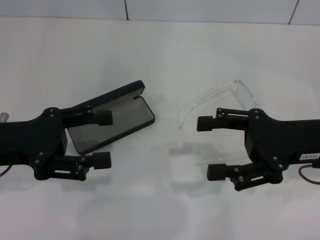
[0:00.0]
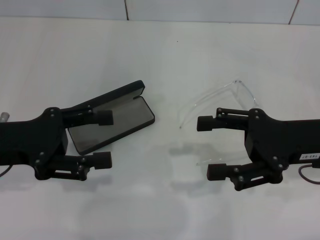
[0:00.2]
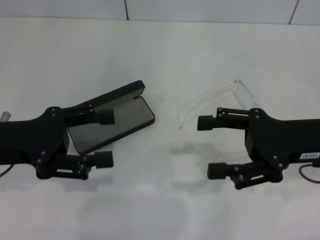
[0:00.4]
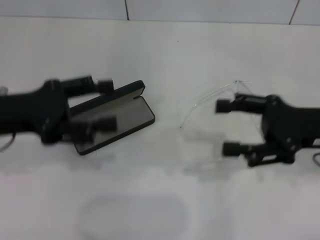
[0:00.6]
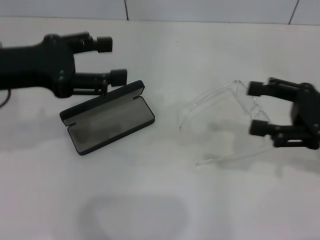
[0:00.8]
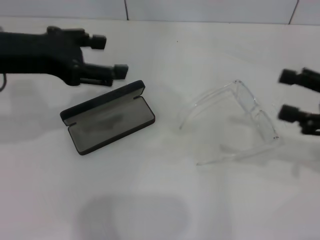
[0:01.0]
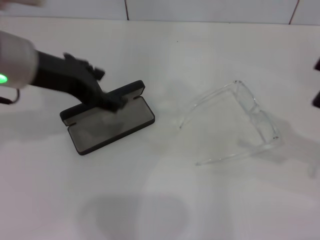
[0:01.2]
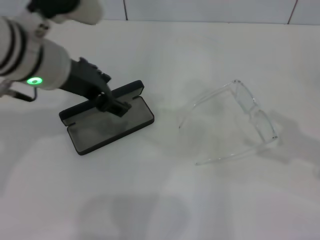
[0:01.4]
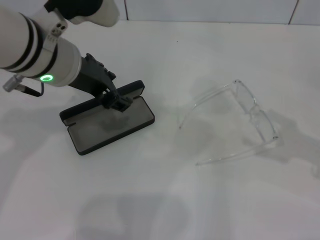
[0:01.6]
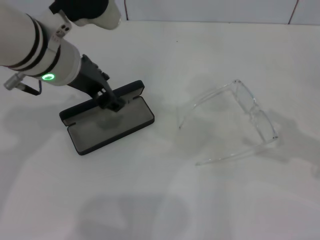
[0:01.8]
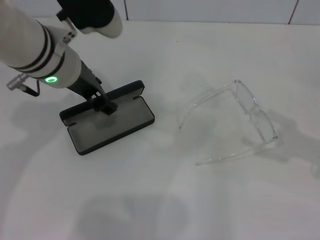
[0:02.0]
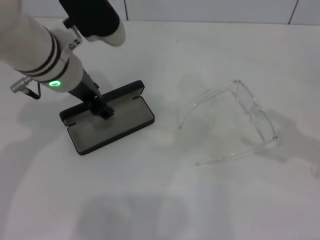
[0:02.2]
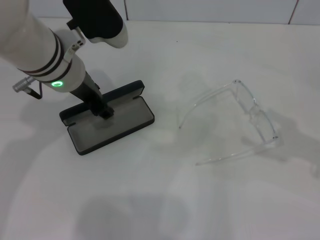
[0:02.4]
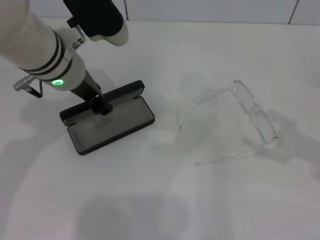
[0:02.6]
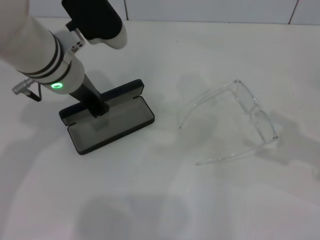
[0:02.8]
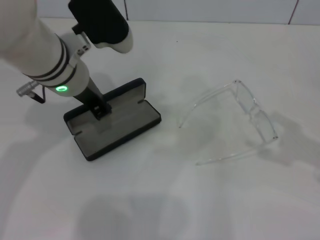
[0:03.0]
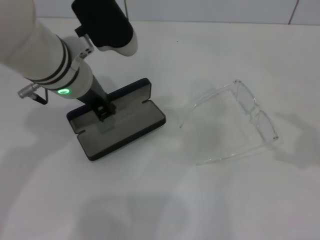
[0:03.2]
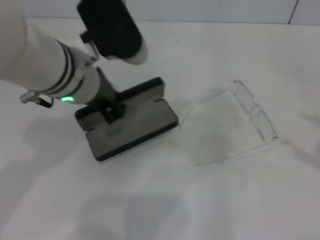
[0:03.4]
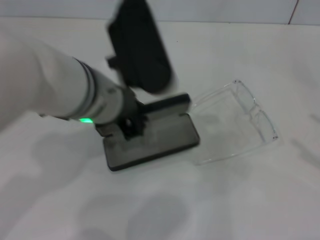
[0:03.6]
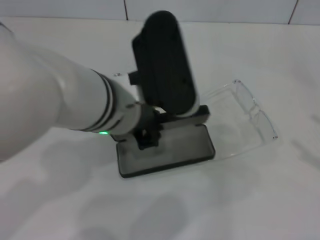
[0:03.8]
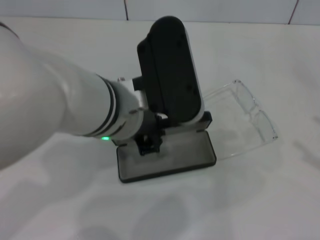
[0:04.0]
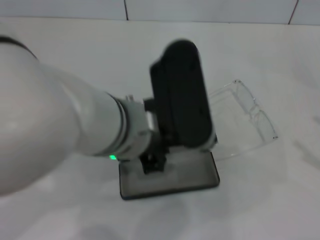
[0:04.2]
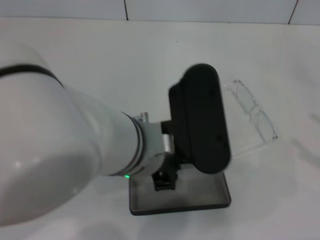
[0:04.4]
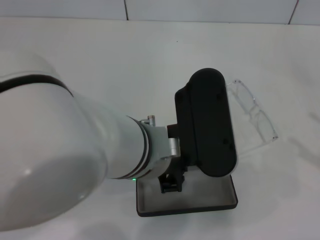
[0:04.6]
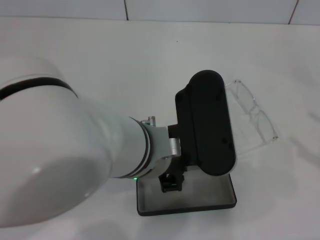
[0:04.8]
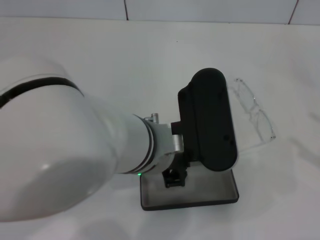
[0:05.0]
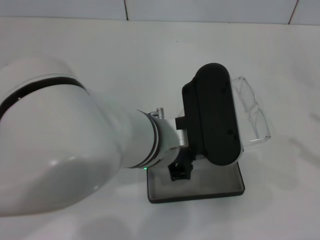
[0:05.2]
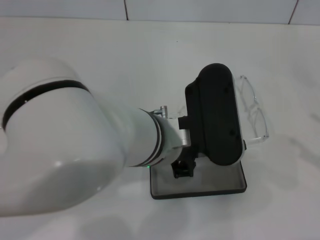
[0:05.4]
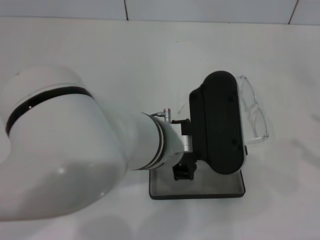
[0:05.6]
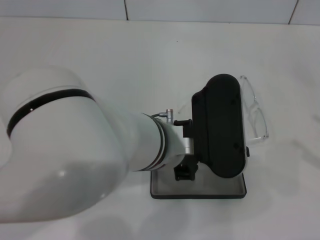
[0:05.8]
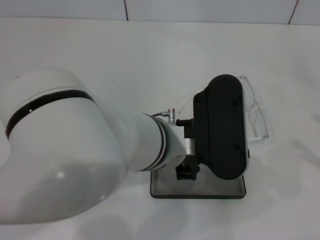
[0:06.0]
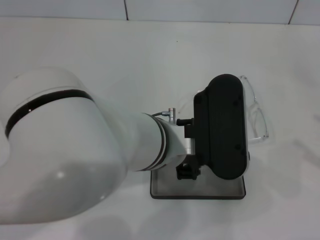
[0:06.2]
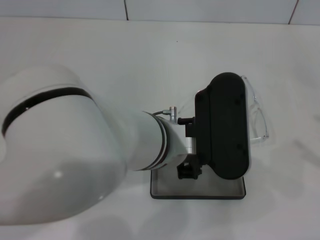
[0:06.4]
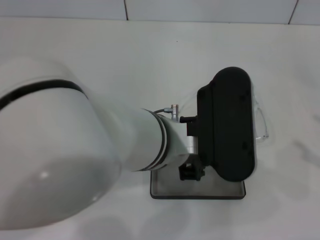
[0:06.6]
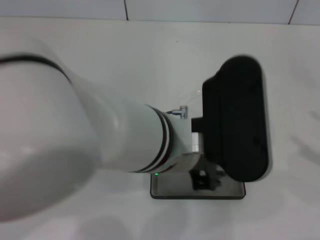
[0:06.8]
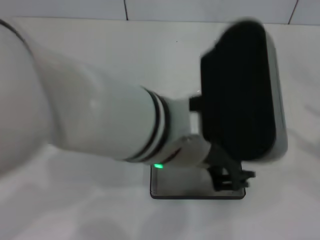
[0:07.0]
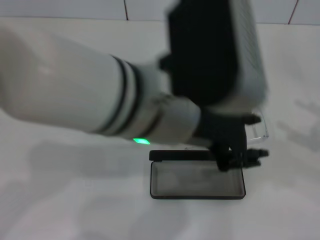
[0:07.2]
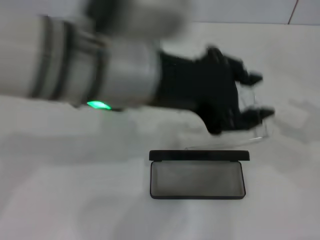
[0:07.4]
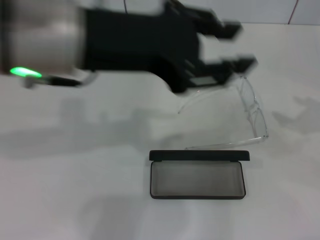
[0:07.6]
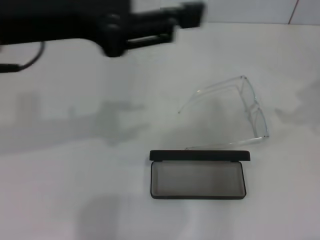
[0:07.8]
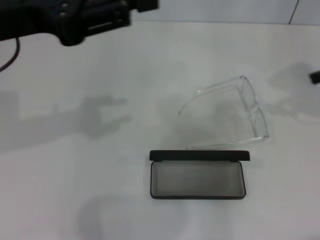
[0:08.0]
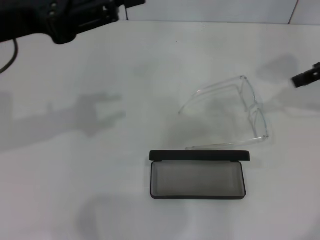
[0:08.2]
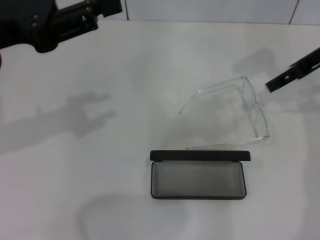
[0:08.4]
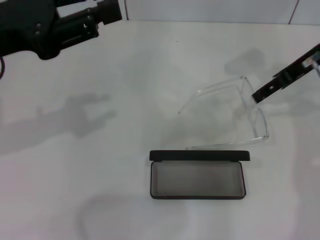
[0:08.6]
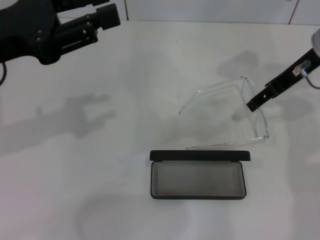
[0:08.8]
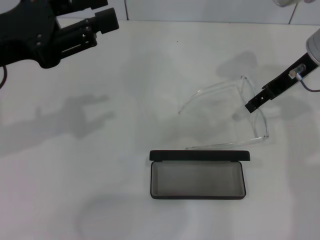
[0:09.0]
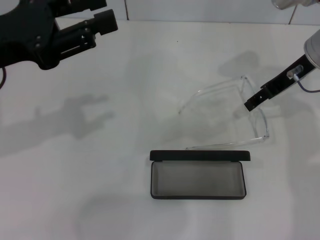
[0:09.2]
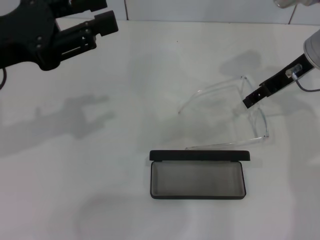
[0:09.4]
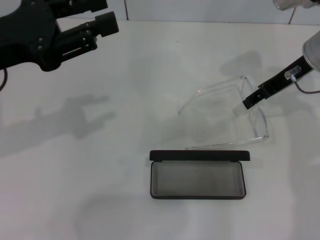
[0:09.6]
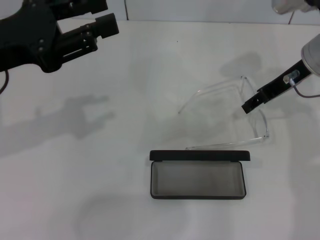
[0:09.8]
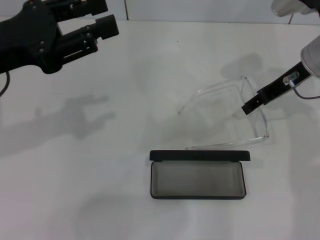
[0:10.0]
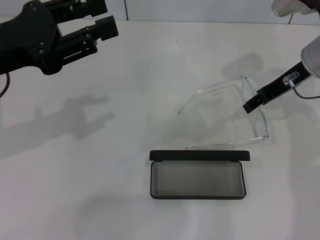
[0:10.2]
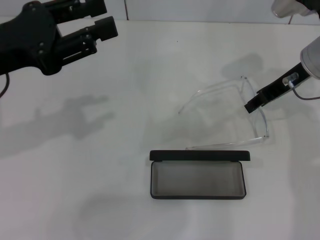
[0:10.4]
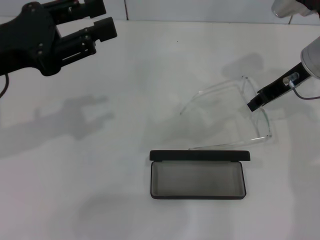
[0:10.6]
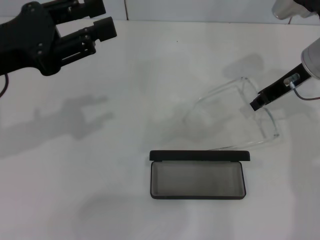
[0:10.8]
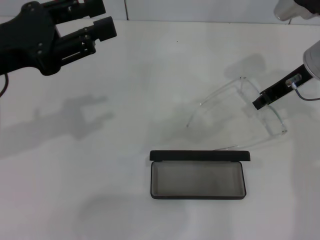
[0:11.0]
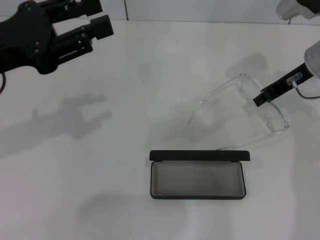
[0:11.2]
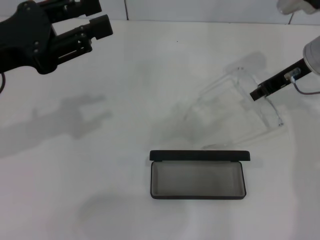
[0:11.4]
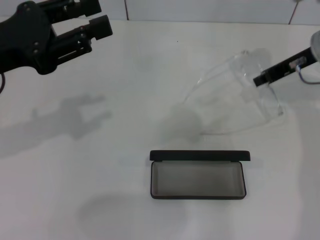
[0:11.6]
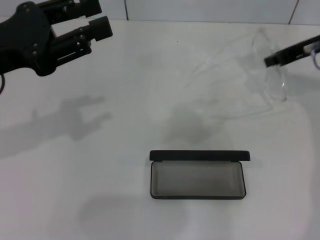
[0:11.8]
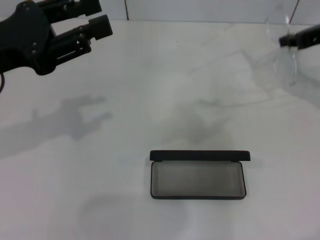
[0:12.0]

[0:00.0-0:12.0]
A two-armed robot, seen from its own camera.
Step, 0:00.0 to 0:02.6: Grab the glasses case with your left hand.
Step, 0:03.0 to 0:06.8: Place the glasses case in the center of the table with your left hand.
Step, 0:07.0 to 0:10.8: Grab the eyeglass frame with your right hand.
0:00.0 to 0:01.6: The left gripper travels to the right, forward and upward by about 15 cm; the right gripper moves to the right, some 15 cm.
0:01.6 to 0:03.0: The left gripper closes its fingers.
0:03.0 to 0:04.4: The right gripper is displaced backward by approximately 5 cm. The left gripper travels backward and to the right by about 15 cm.
0:06.0 to 0:07.6: The right gripper shifts approximately 15 cm forward and upward. Meanwhile the left gripper travels upward and to the left by roughly 15 cm.
0:07.6 to 0:09.0: The right gripper is displaced to the left and forward by approximately 20 cm; the left gripper shifts roughly 15 cm to the left and downward.
0:09.0 to 0:10.4: The grippers make only small movements.
0:10.4 to 0:12.0: The right gripper shifts about 5 cm to the right, and closes its fingers.

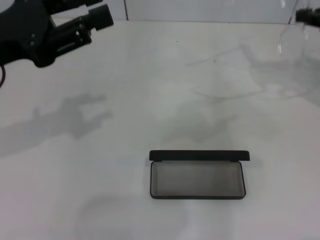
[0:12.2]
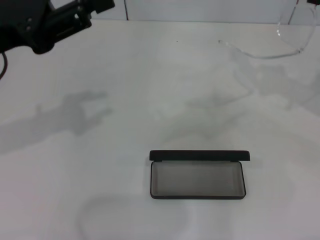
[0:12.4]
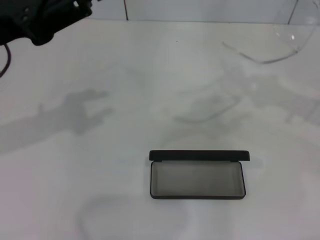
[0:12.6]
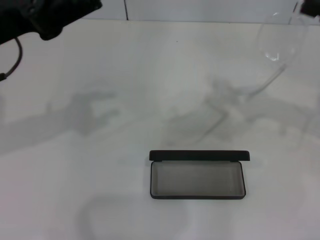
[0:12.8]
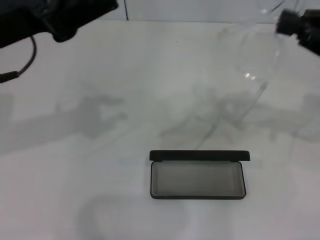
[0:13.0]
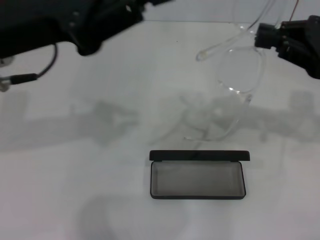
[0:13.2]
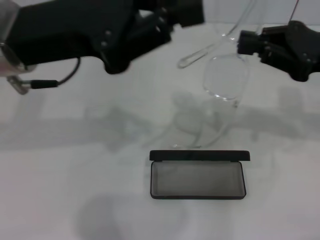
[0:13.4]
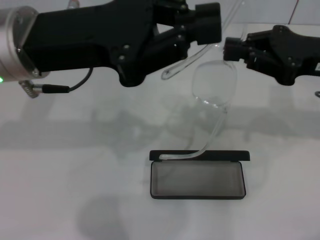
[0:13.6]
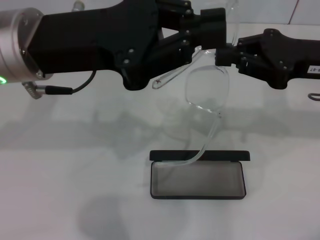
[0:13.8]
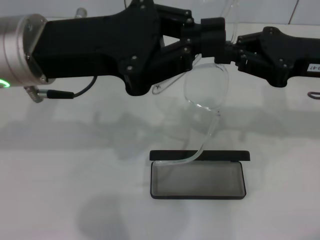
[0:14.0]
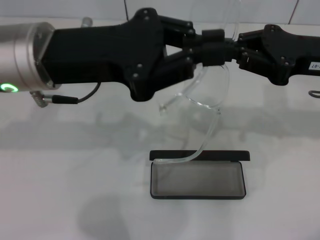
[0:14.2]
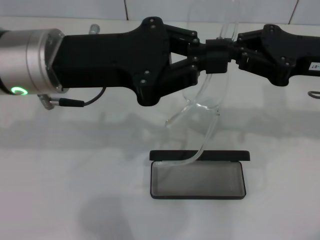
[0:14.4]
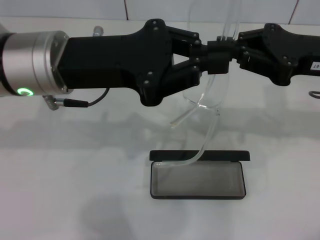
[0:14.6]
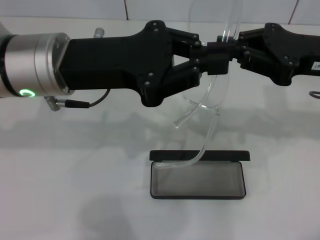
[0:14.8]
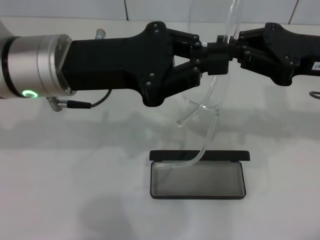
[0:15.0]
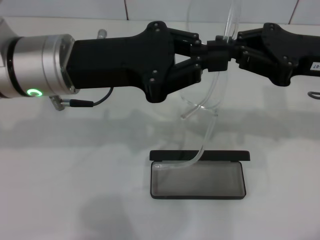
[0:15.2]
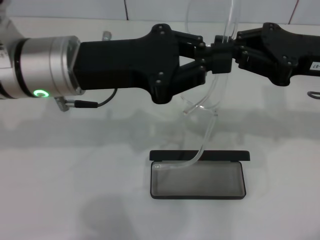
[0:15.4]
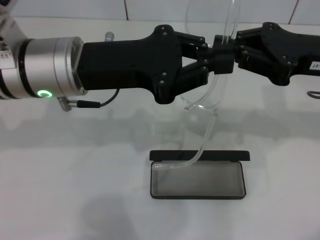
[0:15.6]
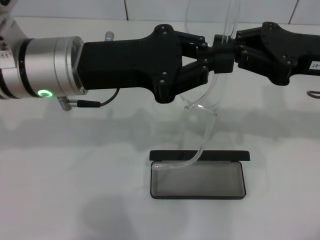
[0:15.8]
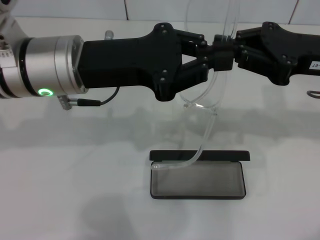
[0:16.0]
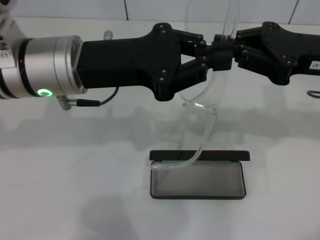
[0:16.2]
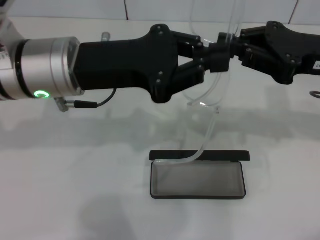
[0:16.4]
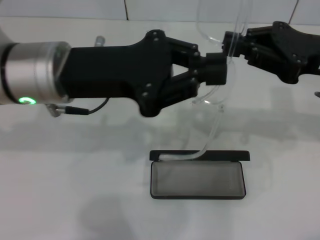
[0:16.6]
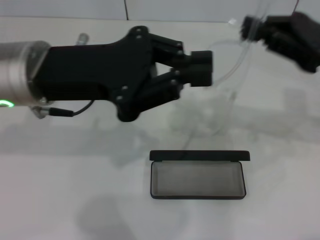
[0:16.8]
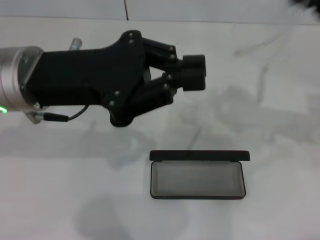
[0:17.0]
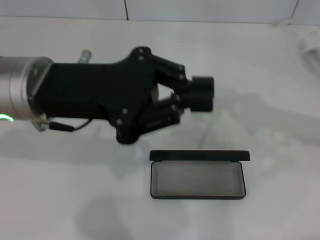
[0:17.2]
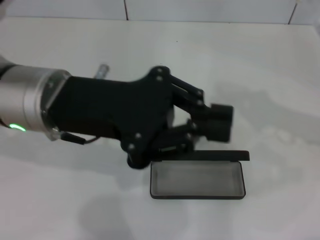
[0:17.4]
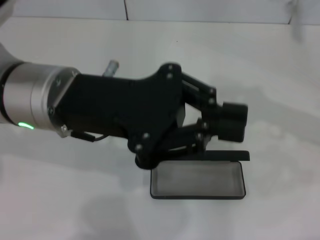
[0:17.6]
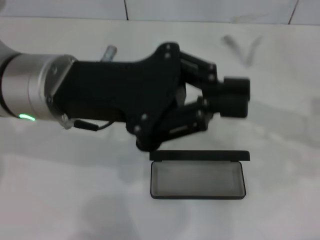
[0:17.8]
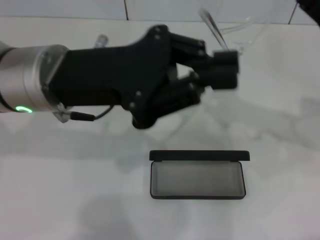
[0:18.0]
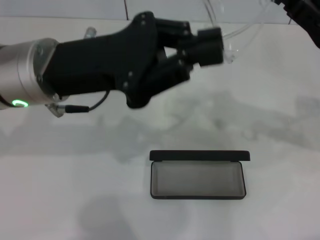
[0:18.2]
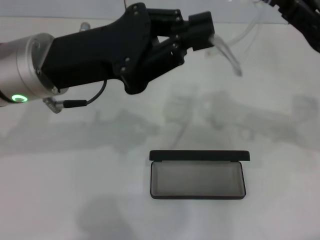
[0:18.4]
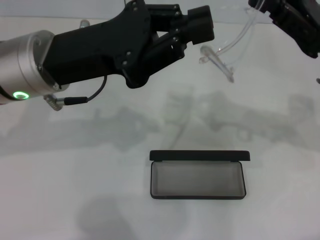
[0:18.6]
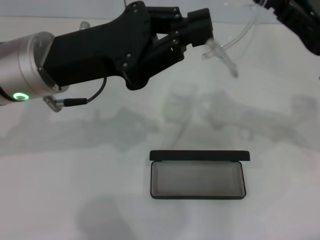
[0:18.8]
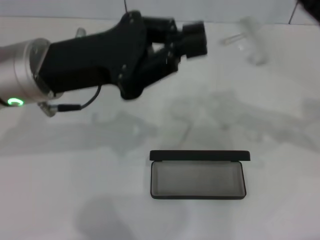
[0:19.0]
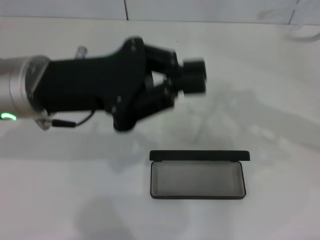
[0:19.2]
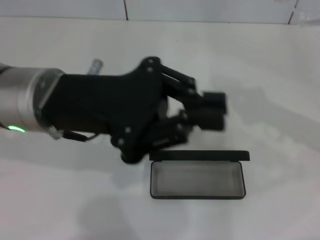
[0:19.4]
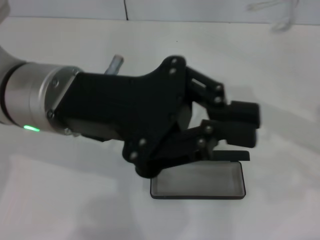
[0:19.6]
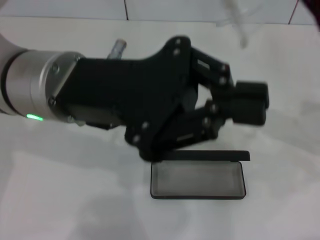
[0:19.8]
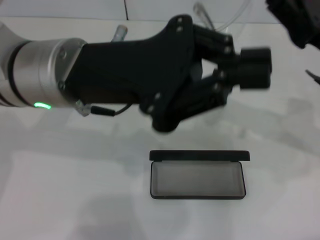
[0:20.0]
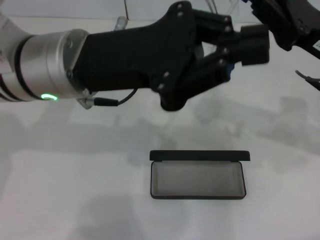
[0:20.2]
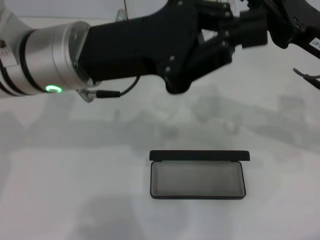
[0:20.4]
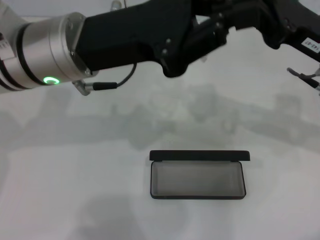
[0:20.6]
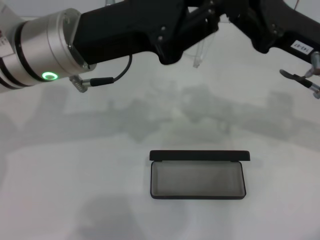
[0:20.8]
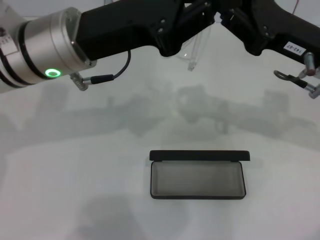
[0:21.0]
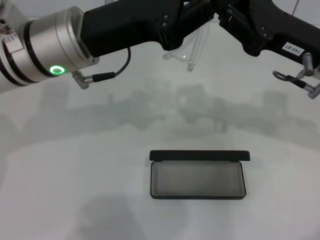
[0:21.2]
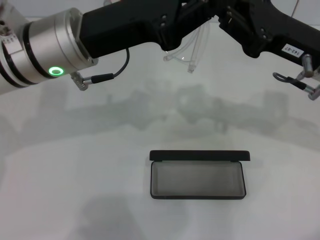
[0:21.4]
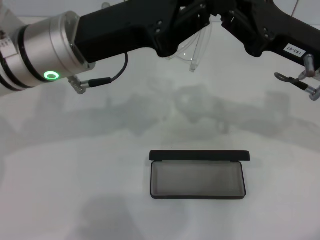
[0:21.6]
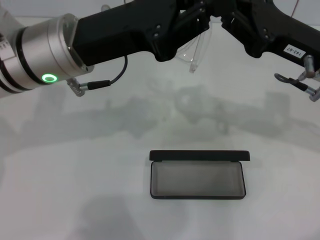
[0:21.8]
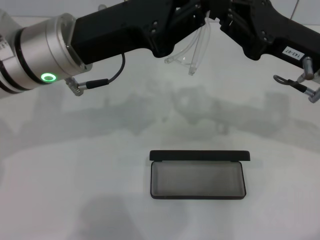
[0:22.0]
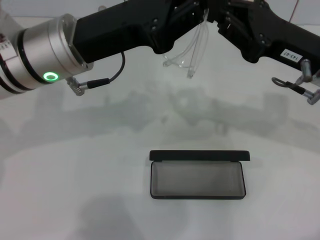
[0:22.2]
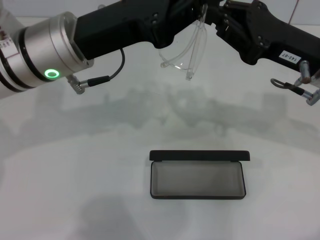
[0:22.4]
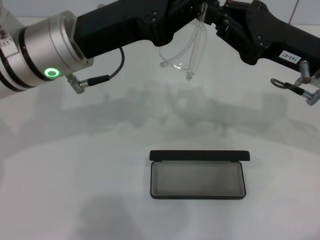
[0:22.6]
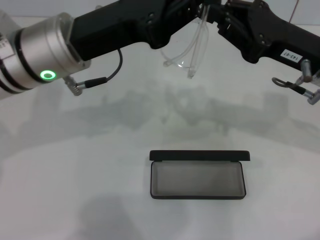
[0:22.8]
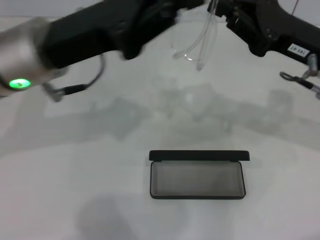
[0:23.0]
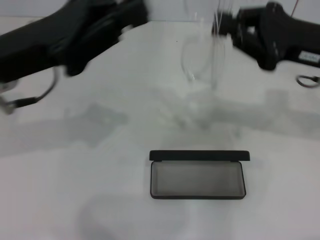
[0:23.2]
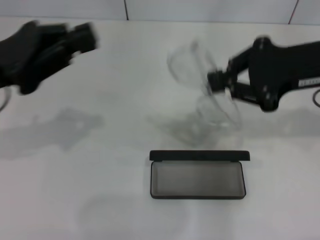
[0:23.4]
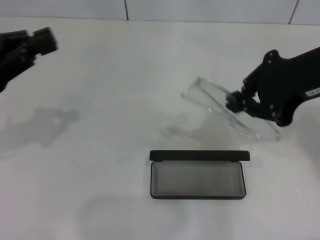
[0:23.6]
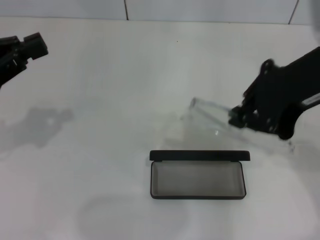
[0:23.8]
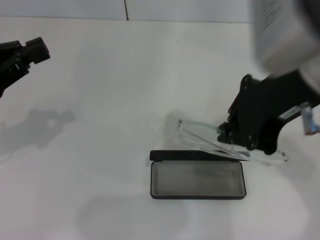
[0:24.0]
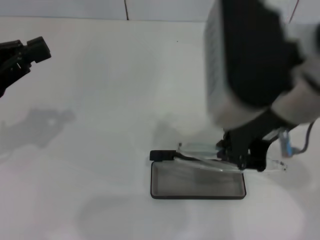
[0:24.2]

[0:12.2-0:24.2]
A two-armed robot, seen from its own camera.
Step, 0:12.2 to 0:22.8: Fold the frame with your left hand.
0:12.2 to 0:13.8: The right gripper travels to the left by some 10 cm, while the left gripper goes some 10 cm to the right, and closes.
0:15.2 to 0:16.6: Both grippers stay about where they are.
0:19.8 to 0:21.2: The left gripper changes place by roughly 5 cm.
0:21.2 to 0:22.6: The two grippers keep their place.
0:22.6 to 0:24.2: The right gripper heads upward, to the left and backward, covering some 15 cm, while the left gripper heads to the left, covering about 15 cm.
